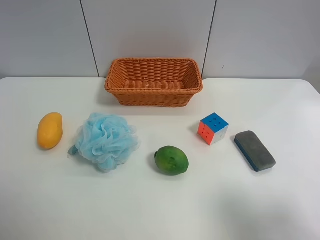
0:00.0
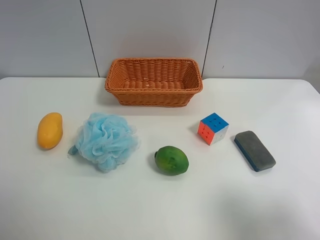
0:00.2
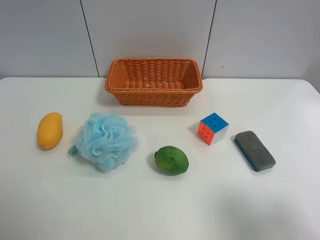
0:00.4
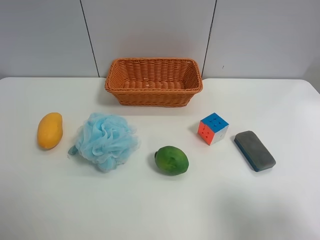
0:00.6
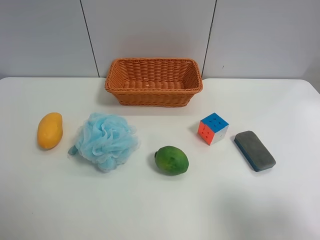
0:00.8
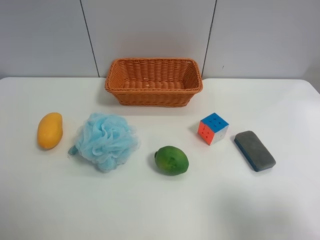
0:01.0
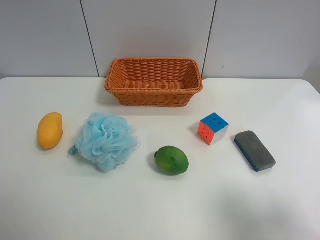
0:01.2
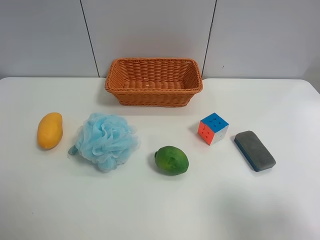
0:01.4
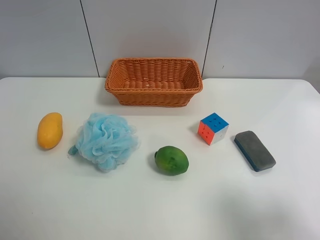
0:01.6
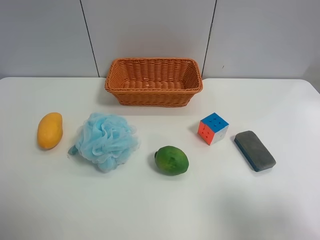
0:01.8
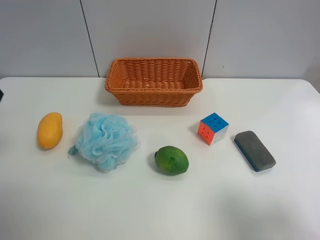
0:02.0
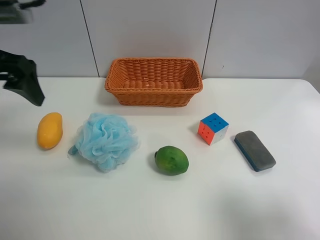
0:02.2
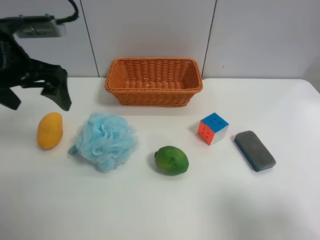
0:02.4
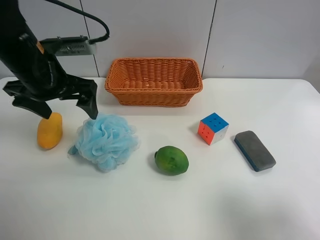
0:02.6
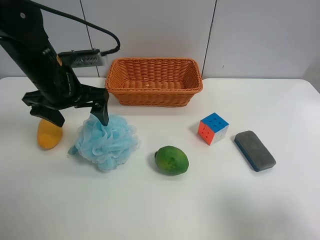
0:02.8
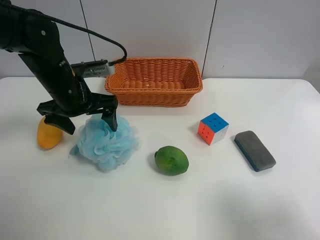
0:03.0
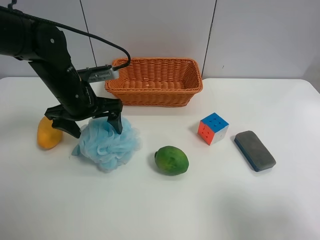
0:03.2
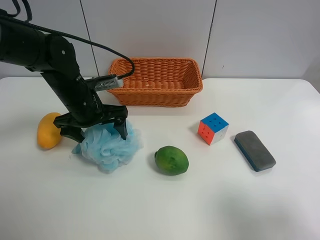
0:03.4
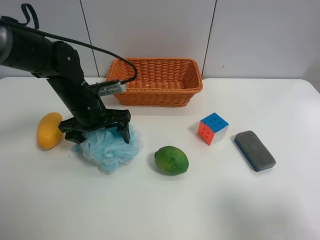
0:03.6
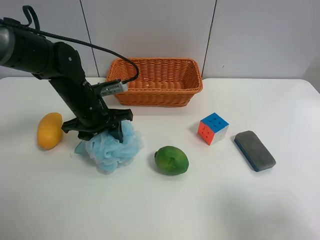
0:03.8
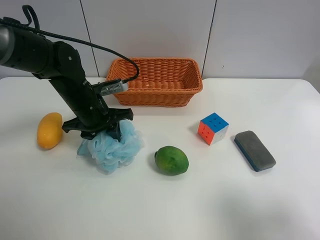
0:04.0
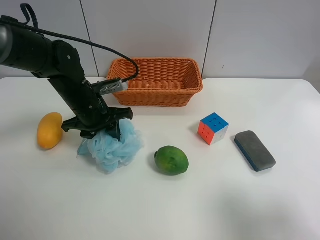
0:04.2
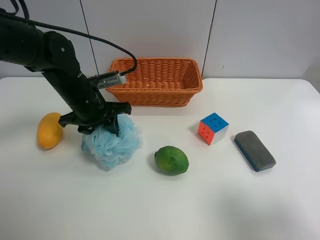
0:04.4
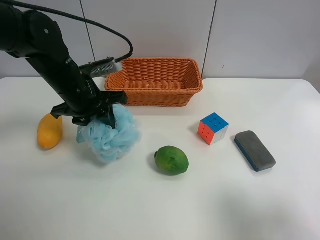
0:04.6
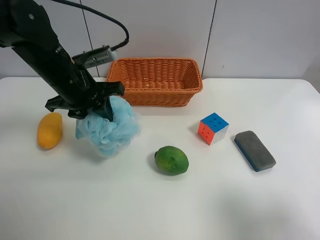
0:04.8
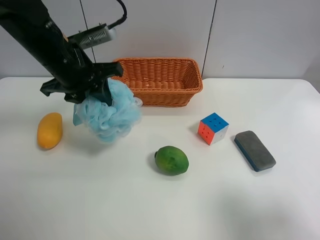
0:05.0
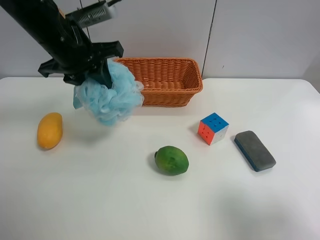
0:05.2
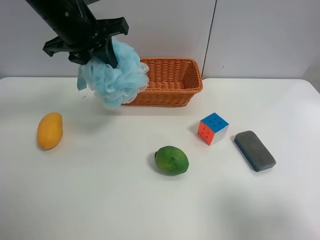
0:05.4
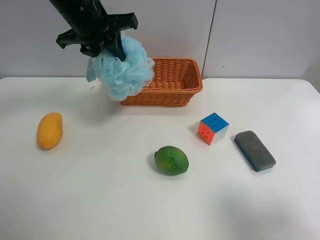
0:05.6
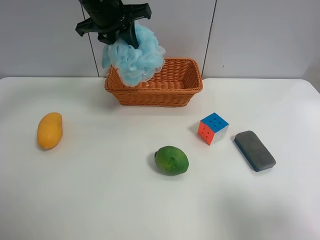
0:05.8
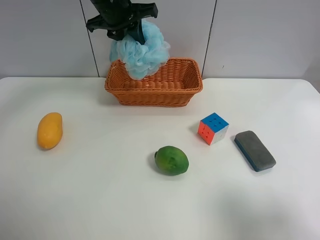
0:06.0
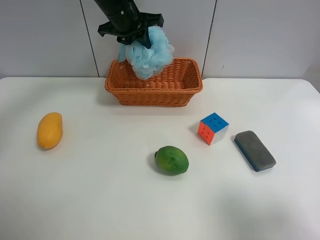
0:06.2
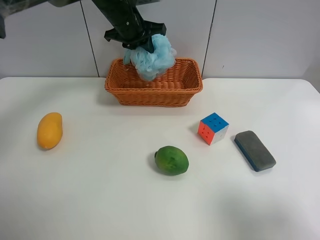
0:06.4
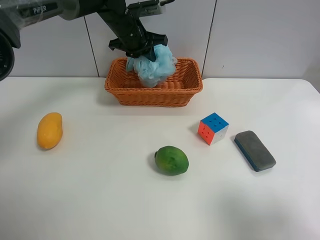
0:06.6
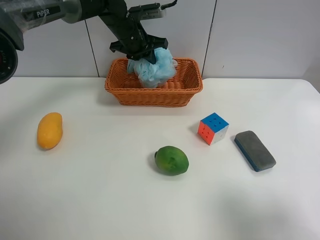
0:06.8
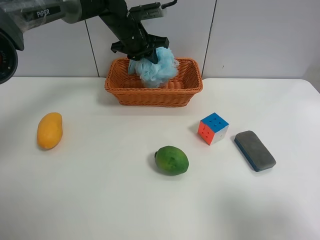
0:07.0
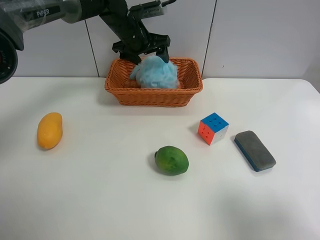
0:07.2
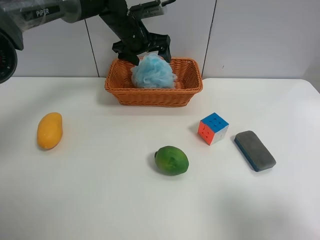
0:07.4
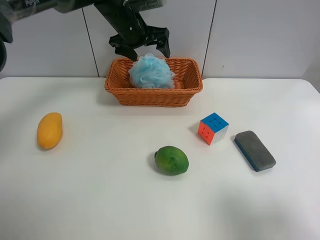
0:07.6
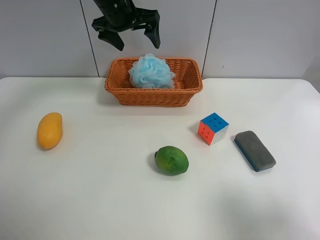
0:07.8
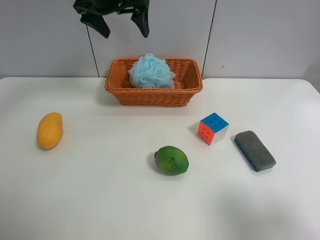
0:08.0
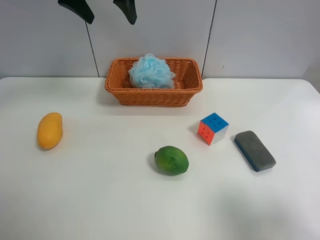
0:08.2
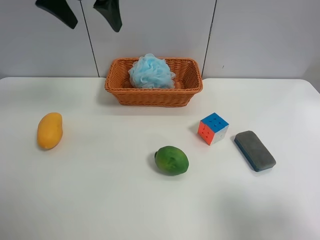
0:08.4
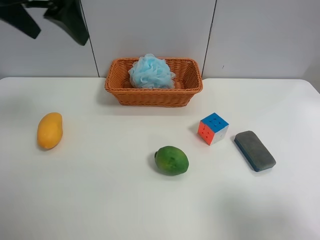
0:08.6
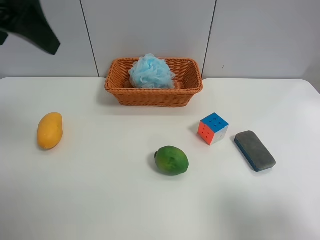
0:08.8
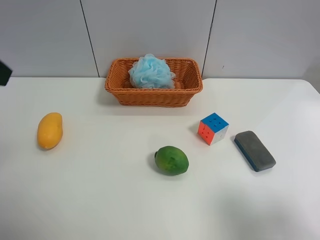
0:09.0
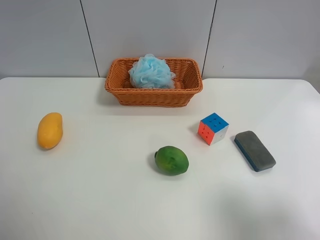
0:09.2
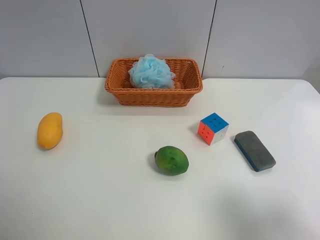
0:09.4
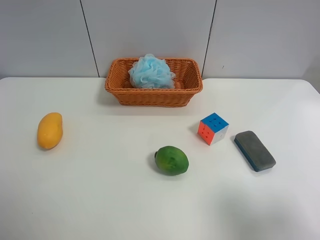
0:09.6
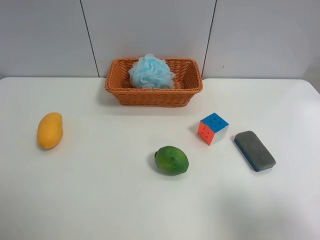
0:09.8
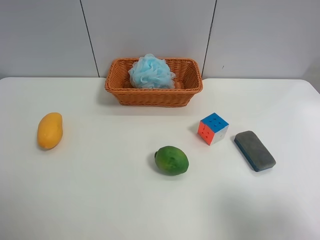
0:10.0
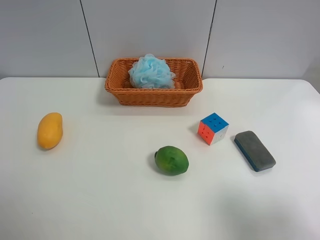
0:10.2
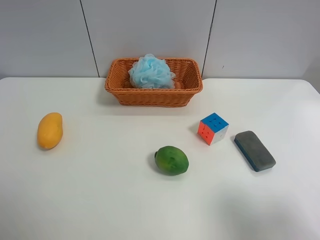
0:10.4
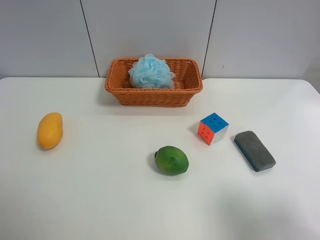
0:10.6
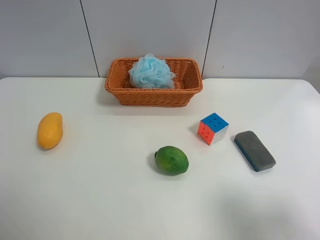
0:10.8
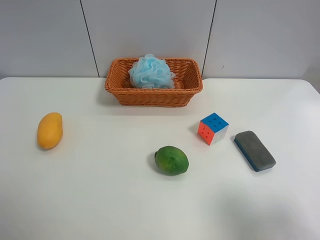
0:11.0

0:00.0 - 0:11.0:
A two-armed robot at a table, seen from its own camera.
Task of the whole recording: use the left gripper to grab items from the table and place them in the basket.
Step, 0:00.0 - 0:04.0: Grasp the Shower puff with the left gripper.
Step, 0:04.2 - 0:07.2: Place the Shower puff into the basket with the left gripper.
0:01.6 - 0:03.2: The left gripper travels forward, downward and to the right by approximately 35 cm.
0:03.2 - 0:04.8: The left gripper shifts by about 5 cm, and closes its fingers.
0:04.8 - 0:06.2: The left gripper goes roughly 20 cm forward and to the right.
0:06.2 - 0:07.8: The left gripper opens up.
0:07.8 - 0:09.4: The left gripper heads backward and to the left, covering some 40 cm.

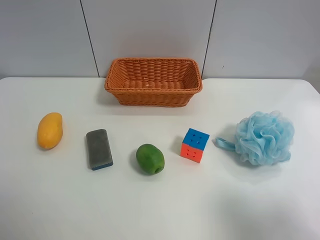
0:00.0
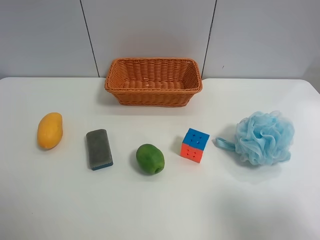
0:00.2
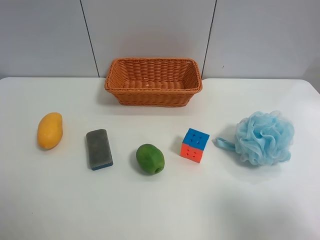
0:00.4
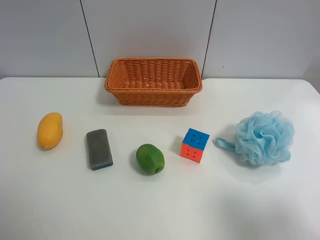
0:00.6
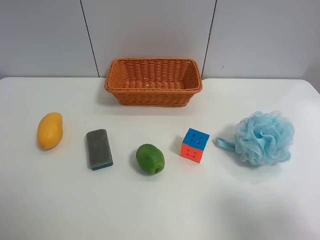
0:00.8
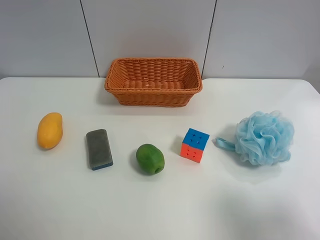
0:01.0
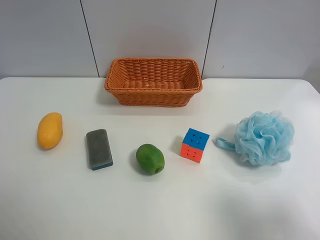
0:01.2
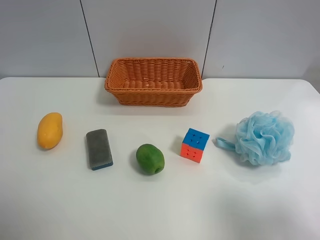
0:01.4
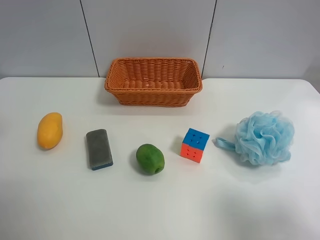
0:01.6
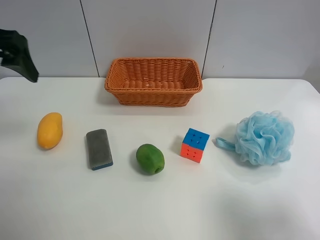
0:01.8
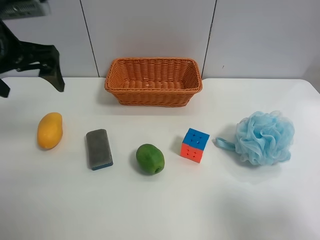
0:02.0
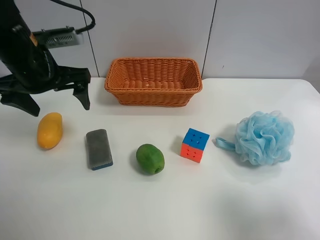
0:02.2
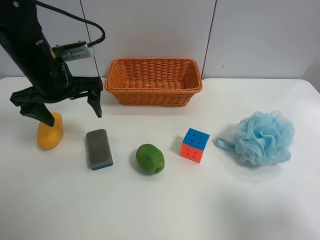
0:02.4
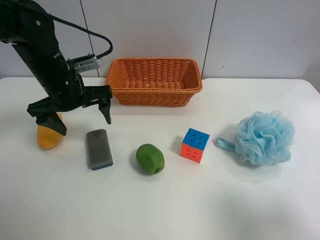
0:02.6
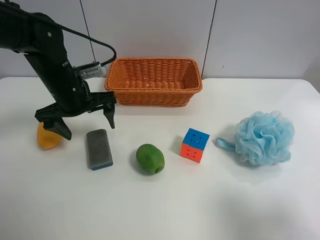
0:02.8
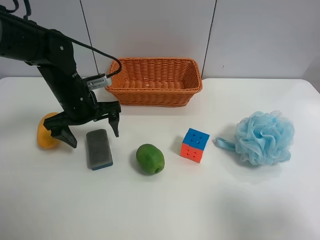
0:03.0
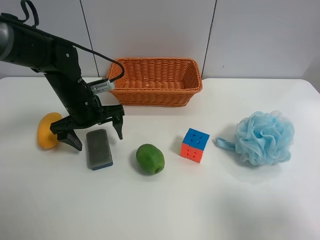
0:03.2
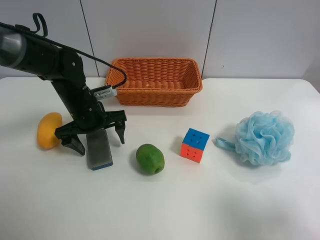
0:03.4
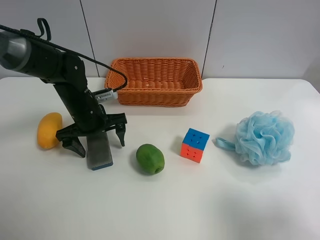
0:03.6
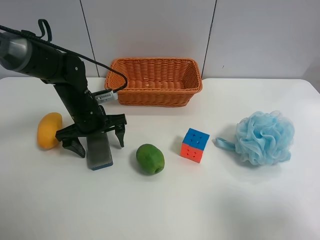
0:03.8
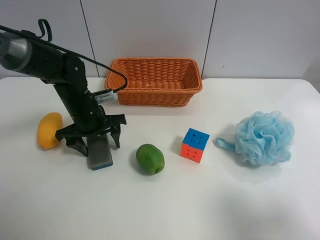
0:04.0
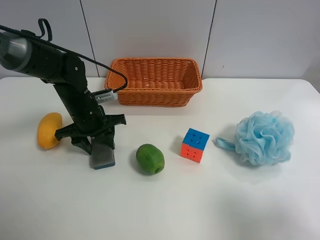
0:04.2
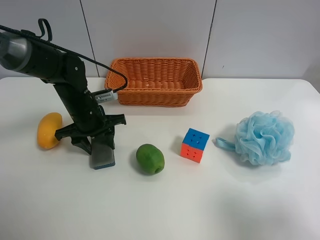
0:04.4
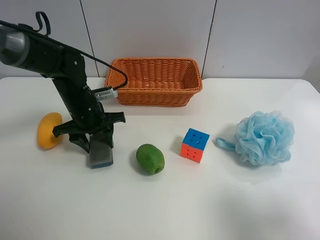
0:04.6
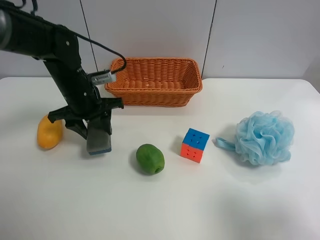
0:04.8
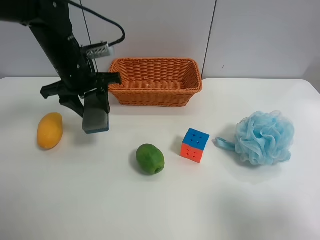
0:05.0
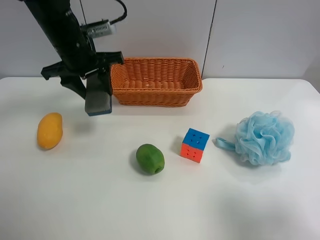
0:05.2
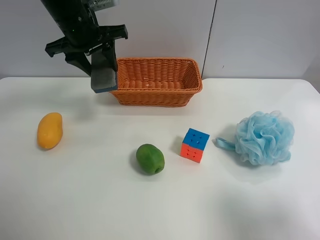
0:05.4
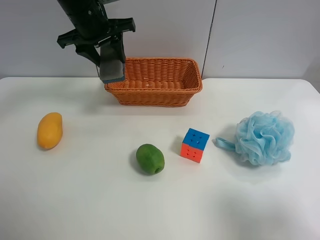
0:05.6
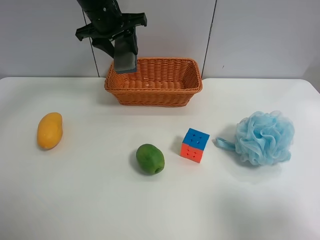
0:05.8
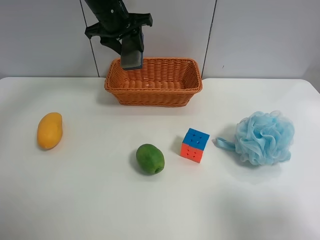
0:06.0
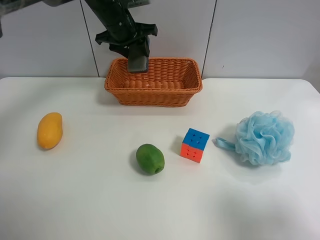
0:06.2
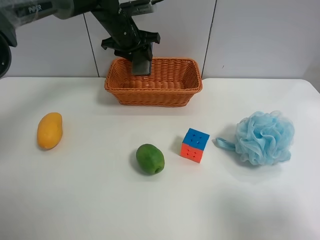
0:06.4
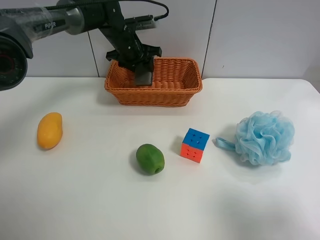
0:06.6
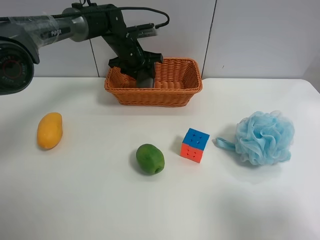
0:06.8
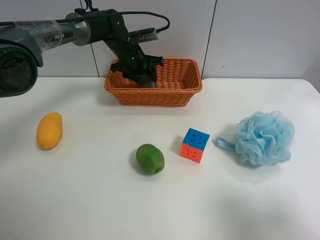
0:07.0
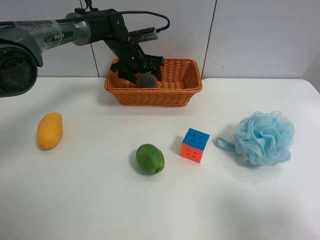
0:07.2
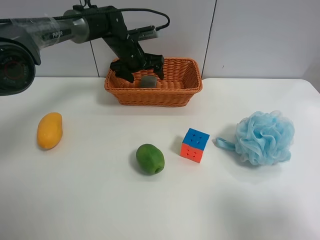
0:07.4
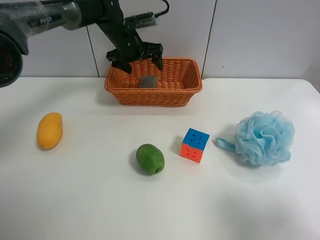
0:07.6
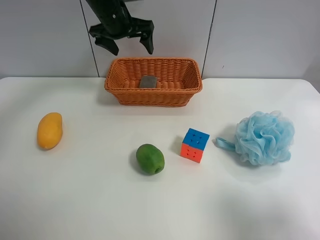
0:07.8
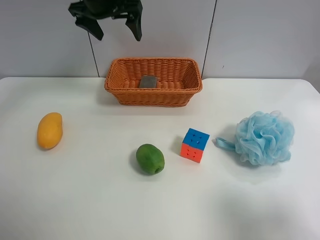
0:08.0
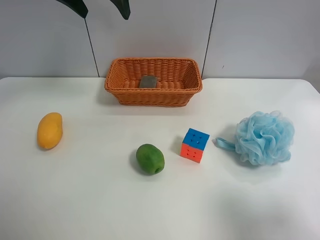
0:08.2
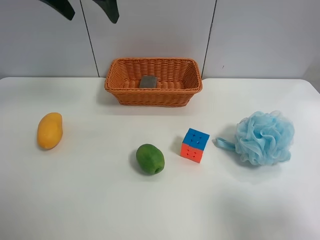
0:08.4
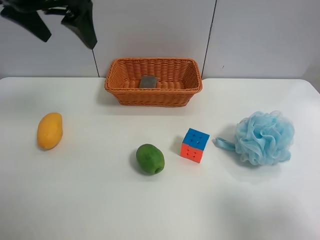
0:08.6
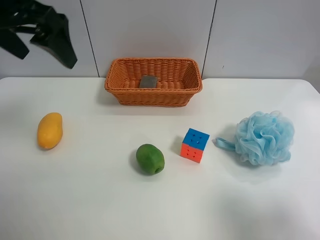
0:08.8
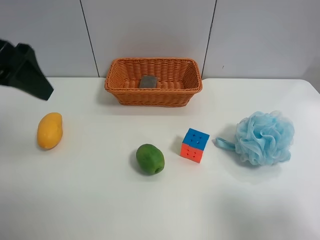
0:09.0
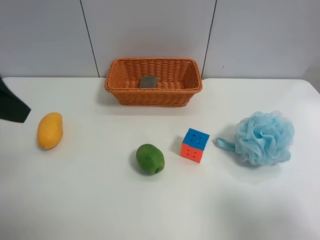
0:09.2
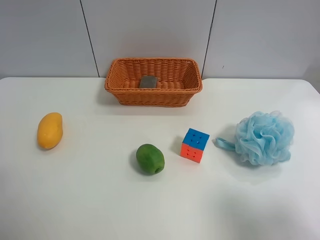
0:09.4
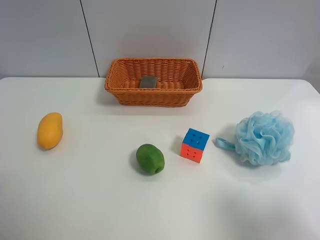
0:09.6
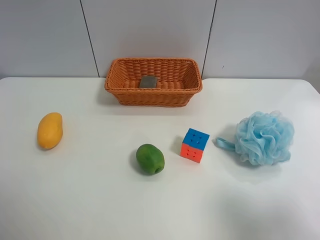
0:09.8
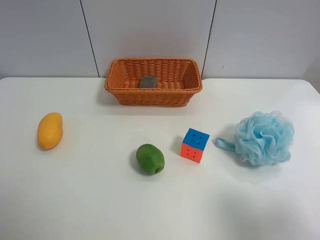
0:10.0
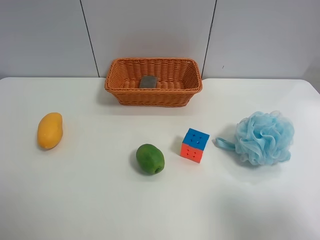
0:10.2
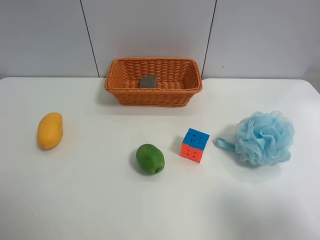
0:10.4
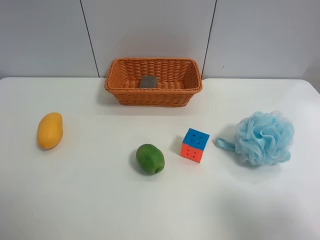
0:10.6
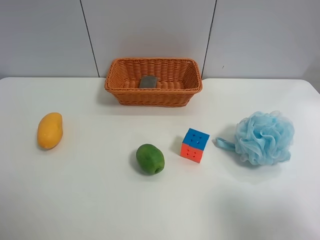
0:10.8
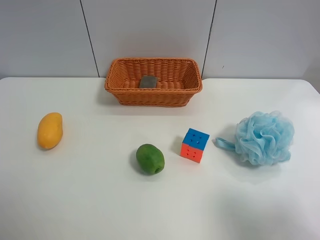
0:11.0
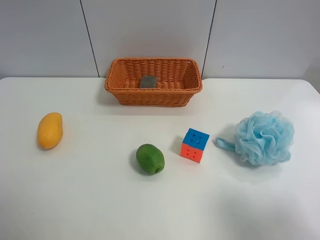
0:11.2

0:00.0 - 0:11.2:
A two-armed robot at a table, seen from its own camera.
Task of the whole recording: use the left gripper to grab items from the table and place them in the basket.
Step, 0:00.0 - 0:04.4: Grasp the chalkboard eraser with the left gripper.
Step, 0:04.6 - 0:07.4: Place the chalkboard eraser into the basket with the left gripper.
0:01.6 - 0:03.2: The left gripper goes approximately 30 cm downward, to the right and forward.
0:03.2 - 0:04.8: The left gripper closes up.
0:04.8 - 0:06.4: The left gripper moves forward and to the right, roughly 15 cm.
0:06.4 - 0:08.0: The left gripper heads upward and backward, covering approximately 15 cm, and opens.
0:08.0 - 0:09.6: The left gripper is displaced backward and to the left by roughly 40 cm.
